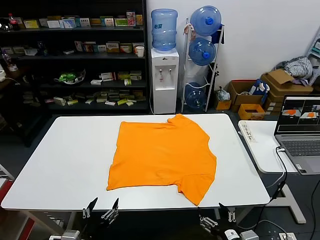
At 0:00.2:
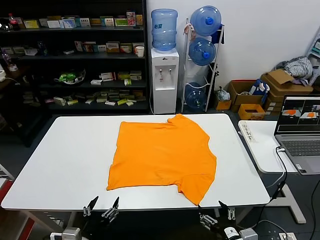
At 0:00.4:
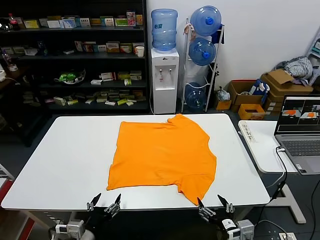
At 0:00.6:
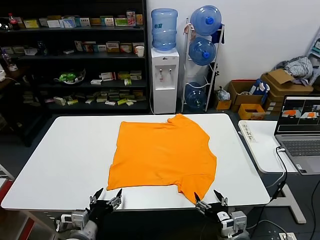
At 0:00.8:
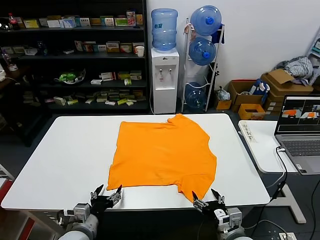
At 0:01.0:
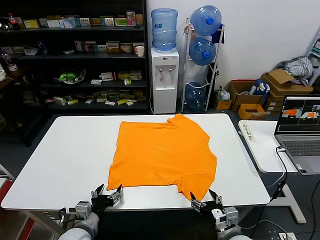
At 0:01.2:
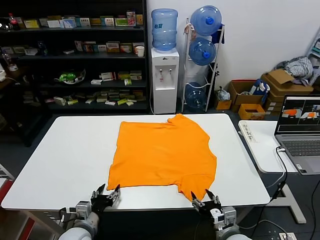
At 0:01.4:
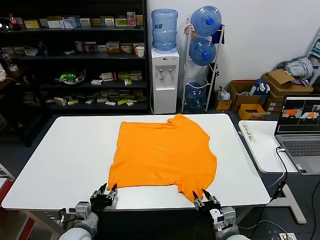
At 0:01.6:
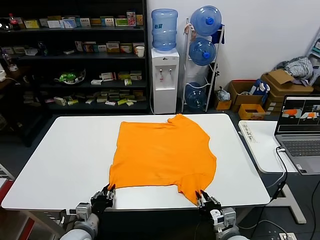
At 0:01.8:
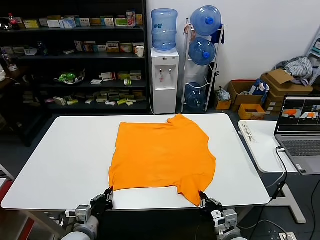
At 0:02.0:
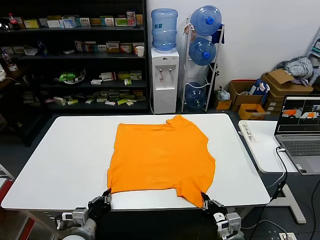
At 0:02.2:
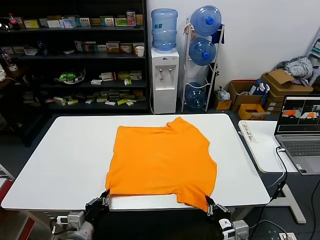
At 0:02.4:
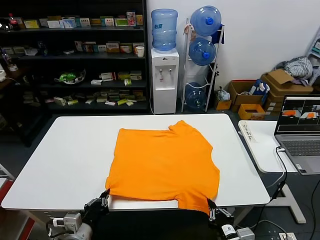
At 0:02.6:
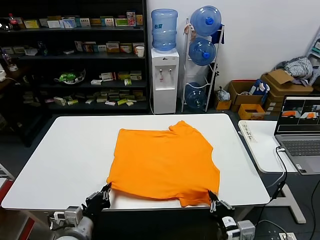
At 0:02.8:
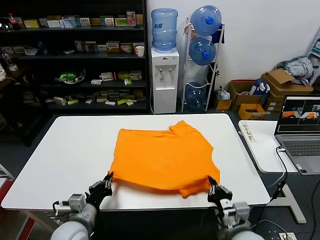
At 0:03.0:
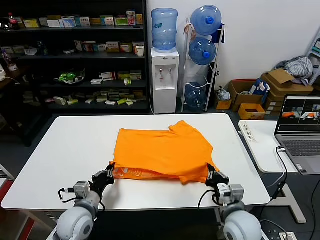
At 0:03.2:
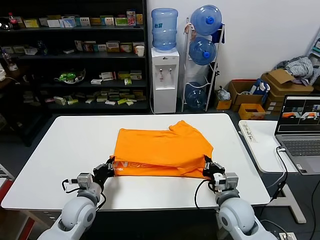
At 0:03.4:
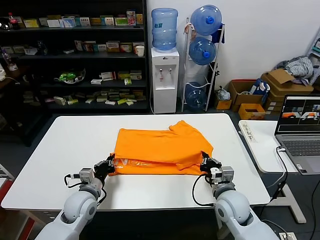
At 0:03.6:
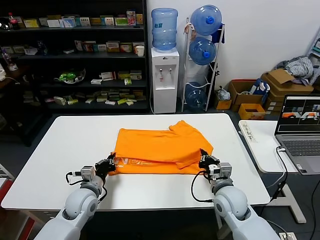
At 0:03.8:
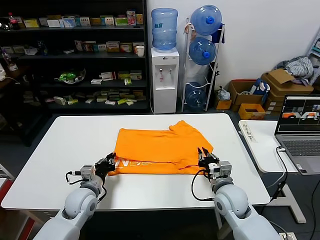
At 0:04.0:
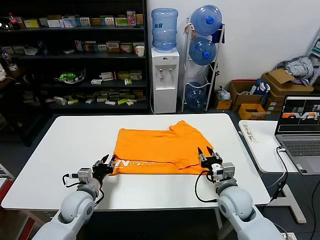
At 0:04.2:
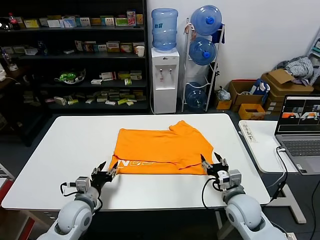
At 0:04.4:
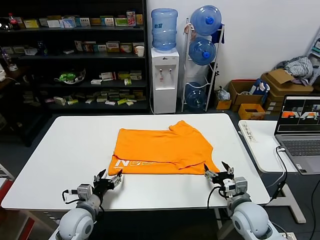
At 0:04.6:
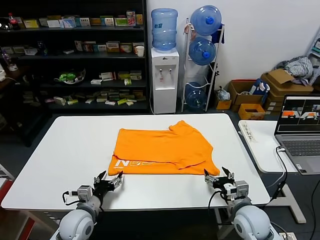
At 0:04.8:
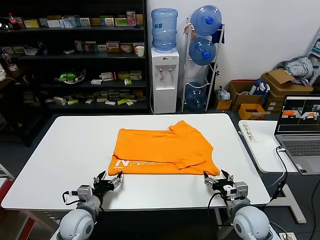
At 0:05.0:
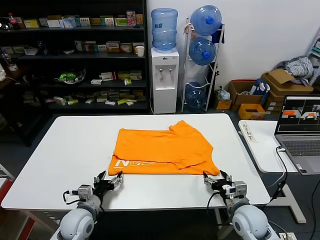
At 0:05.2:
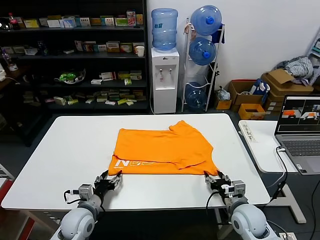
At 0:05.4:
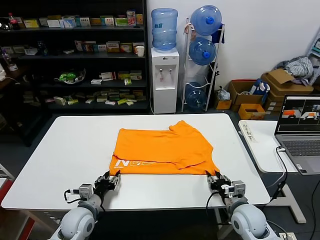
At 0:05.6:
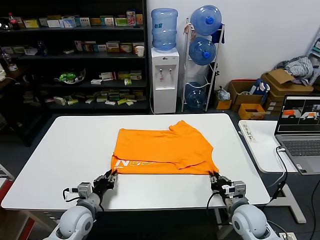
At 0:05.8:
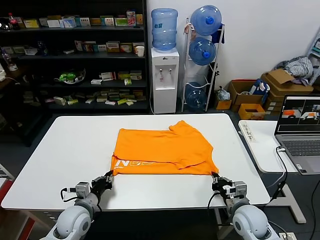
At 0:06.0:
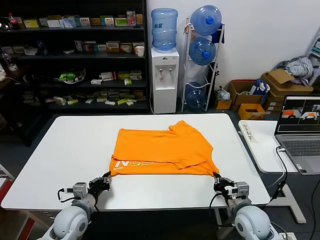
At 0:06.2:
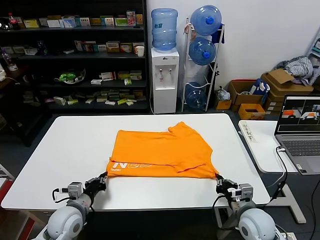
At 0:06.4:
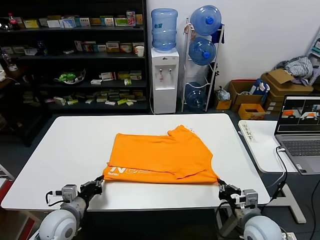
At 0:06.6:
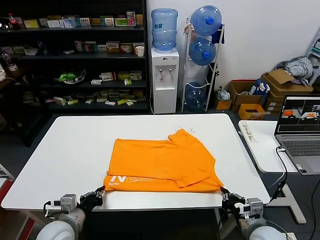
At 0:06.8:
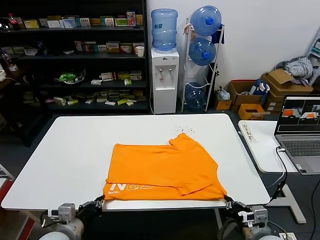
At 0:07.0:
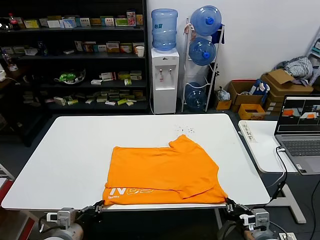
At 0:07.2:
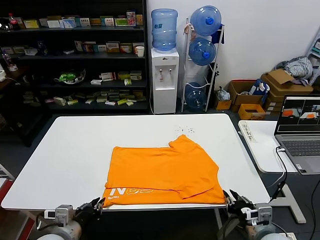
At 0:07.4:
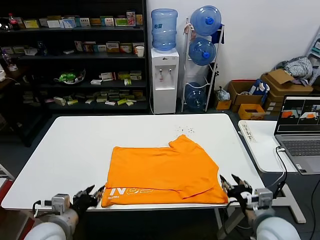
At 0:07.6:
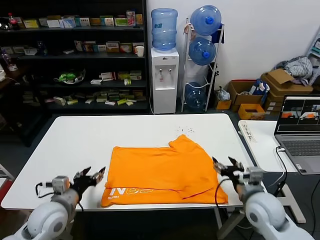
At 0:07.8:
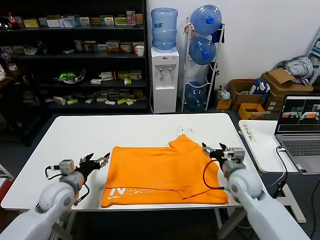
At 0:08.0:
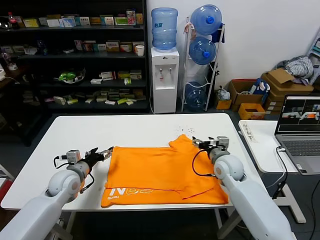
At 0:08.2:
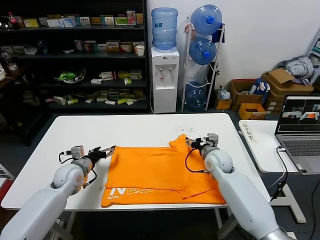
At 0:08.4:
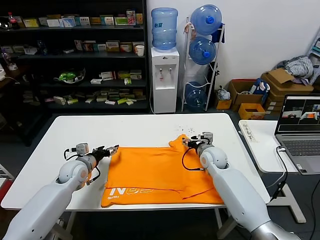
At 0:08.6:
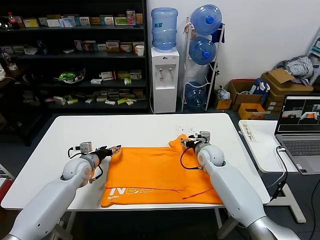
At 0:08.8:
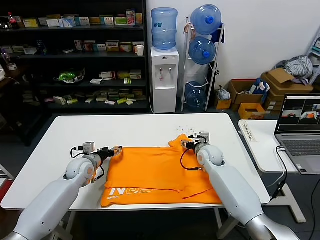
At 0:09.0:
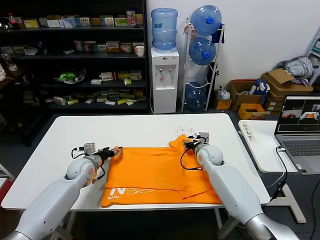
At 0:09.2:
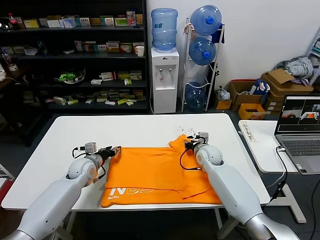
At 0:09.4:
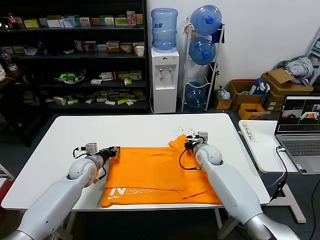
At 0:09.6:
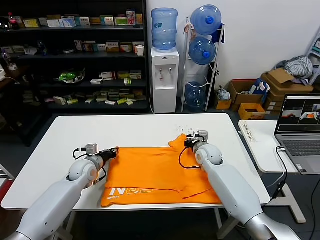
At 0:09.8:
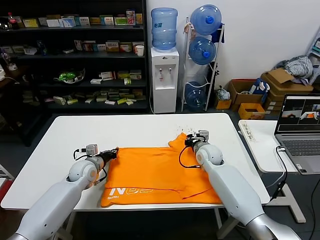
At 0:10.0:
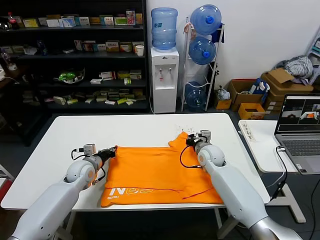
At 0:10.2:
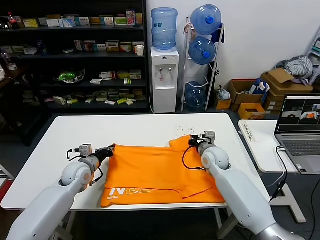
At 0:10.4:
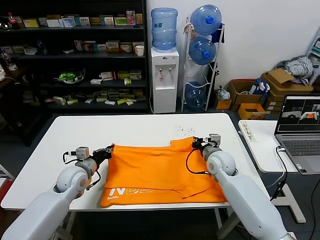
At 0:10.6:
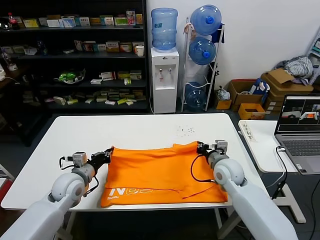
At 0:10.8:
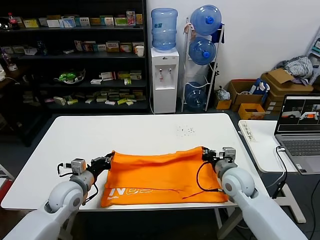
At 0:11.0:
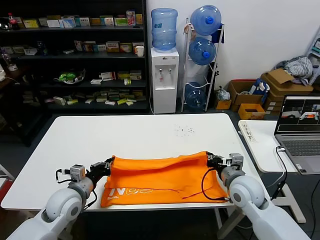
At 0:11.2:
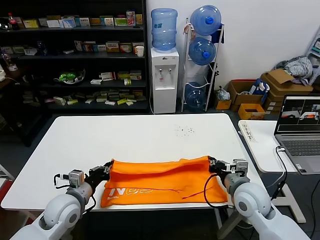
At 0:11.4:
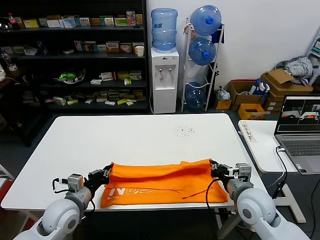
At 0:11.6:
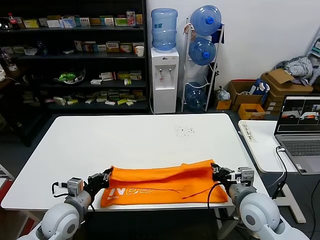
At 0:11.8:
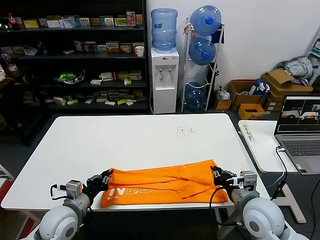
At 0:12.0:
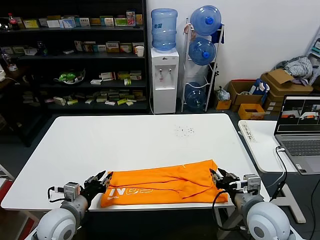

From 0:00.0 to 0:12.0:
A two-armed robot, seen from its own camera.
Task of the whole recording: fold and organize the clothes.
Step, from 0:00.0 to 0:01.8: use both grippers simultaneously to clamp the lower edge of the clothing fabric.
Step, from 0:02.0 to 0:03.8: use both grippers to drag the lower edge of the fabric forward and fold it over the upper edge.
Step, from 0:04.0 to 0:07.2: Drag the clothes downward with both gripper.
Step, from 0:07.4 to 0:09.6: use both grippers simultaneously to clamp the upper edge of the clothing fabric.
Step, from 0:09.8 to 0:11.8: use both grippers to drag the upper edge of the fabric backward and fold it over the lower edge.
From 0:01.6 to 0:03.0: The right gripper heads upward and forward, covering some 5 cm; the left gripper heads upward, covering some 5 cm, and closes up.
From 0:03.0 to 0:04.4: The left gripper opens up. Meanwhile the right gripper changes place by about 5 cm, and opens.
From 0:04.4 to 0:06.0: The right gripper closes its fingers; the left gripper closes.
From 0:06.0 to 0:07.6: The right gripper travels upward by approximately 10 cm, goes backward and returns, roughly 10 cm each way, and opens; the left gripper goes some 10 cm upward and backward, and opens its fingers.
From 0:07.6 to 0:09.0: The grippers both shift forward by approximately 25 cm.
From 0:09.0 to 0:10.4: The left gripper shifts by roughly 5 cm, and closes, while the right gripper heads backward, covering roughly 5 cm, and closes up.
From 0:10.4 to 0:12.0: The two grippers go roughly 20 cm backward. The left gripper opens, while the right gripper opens its fingers.

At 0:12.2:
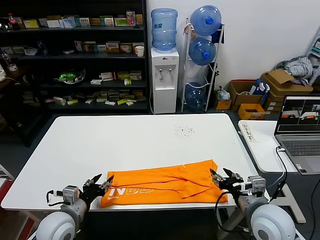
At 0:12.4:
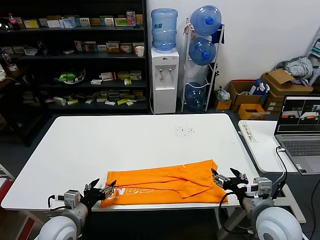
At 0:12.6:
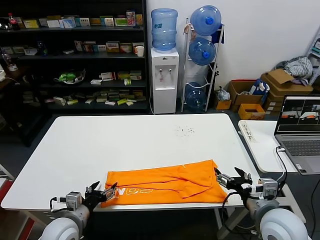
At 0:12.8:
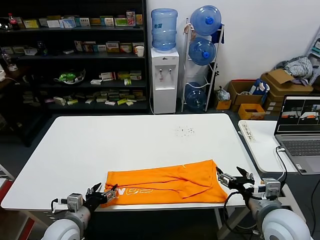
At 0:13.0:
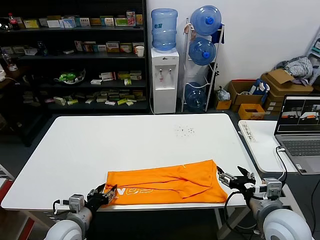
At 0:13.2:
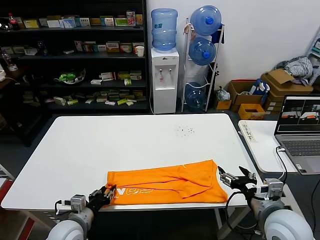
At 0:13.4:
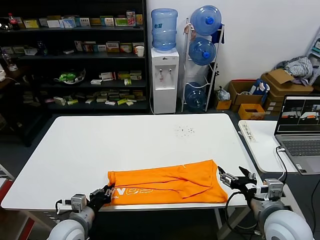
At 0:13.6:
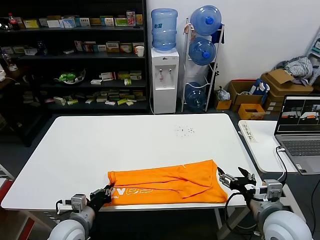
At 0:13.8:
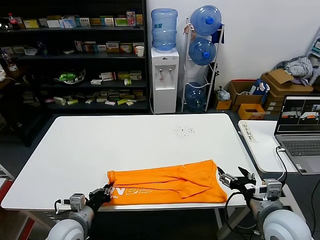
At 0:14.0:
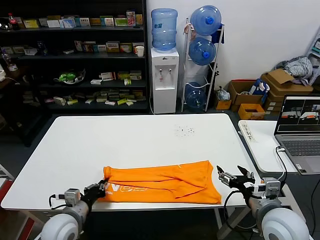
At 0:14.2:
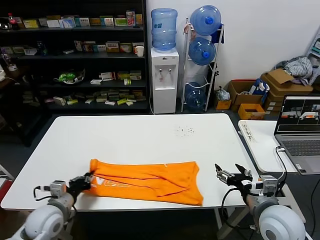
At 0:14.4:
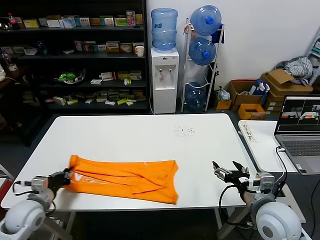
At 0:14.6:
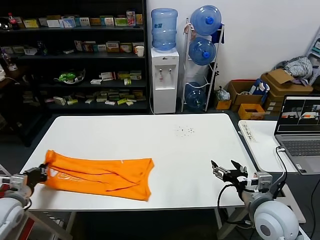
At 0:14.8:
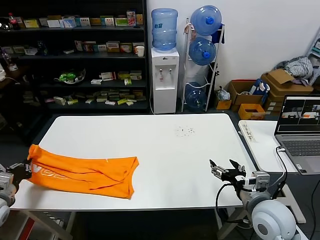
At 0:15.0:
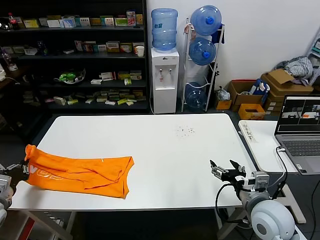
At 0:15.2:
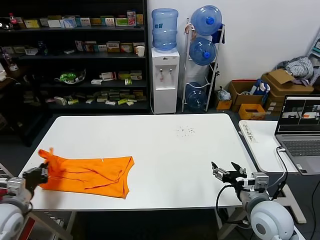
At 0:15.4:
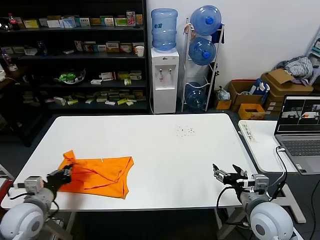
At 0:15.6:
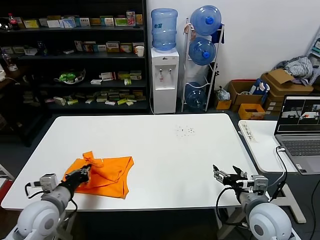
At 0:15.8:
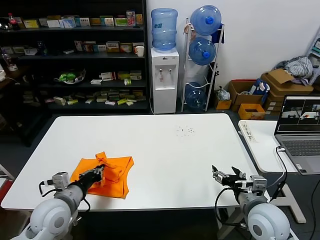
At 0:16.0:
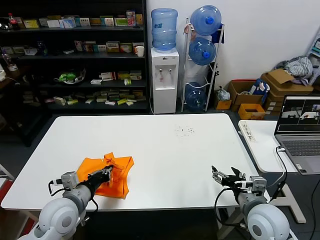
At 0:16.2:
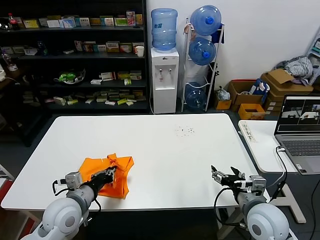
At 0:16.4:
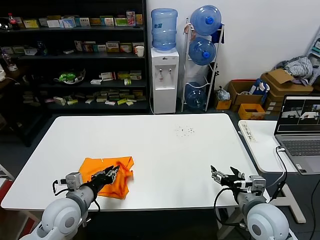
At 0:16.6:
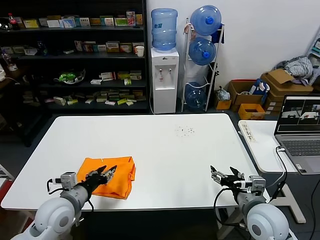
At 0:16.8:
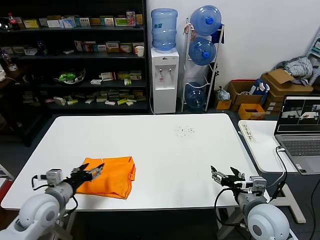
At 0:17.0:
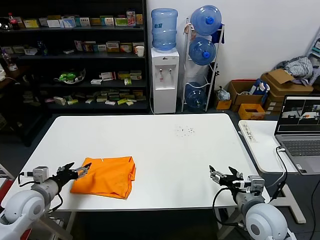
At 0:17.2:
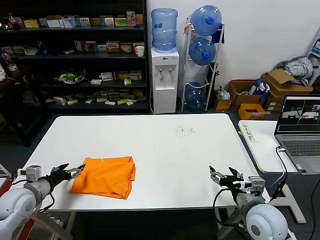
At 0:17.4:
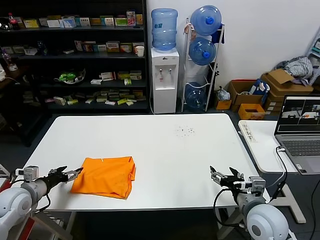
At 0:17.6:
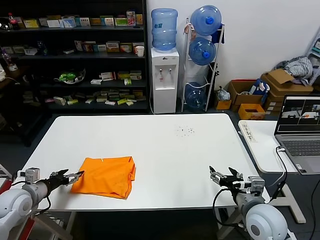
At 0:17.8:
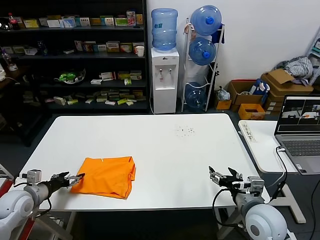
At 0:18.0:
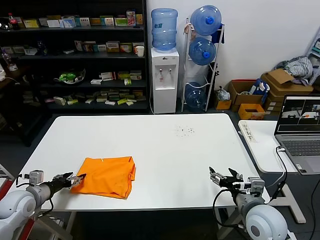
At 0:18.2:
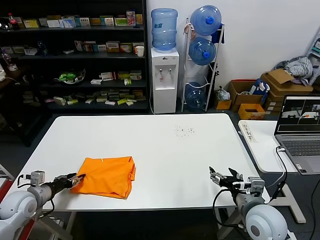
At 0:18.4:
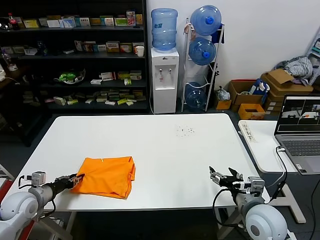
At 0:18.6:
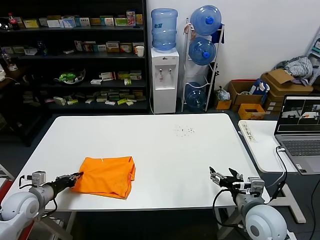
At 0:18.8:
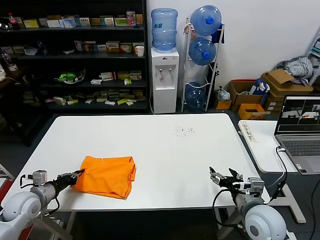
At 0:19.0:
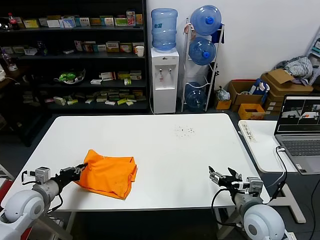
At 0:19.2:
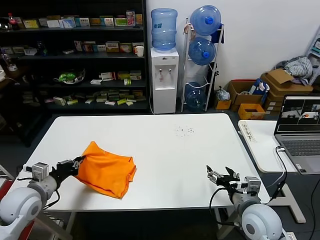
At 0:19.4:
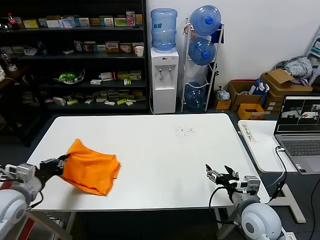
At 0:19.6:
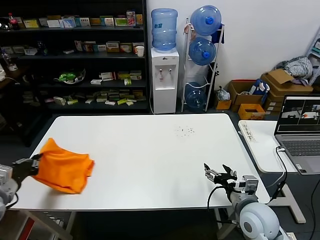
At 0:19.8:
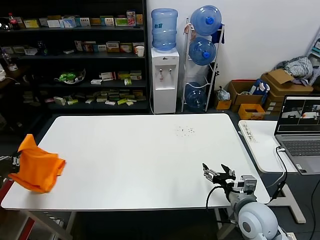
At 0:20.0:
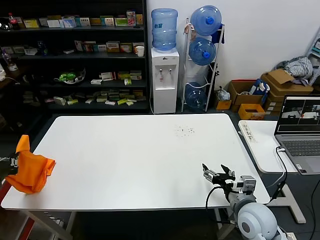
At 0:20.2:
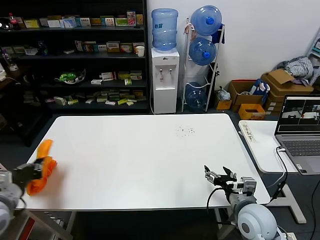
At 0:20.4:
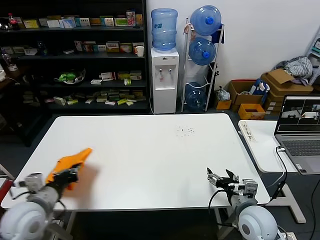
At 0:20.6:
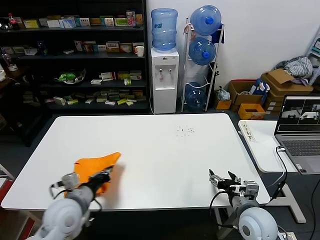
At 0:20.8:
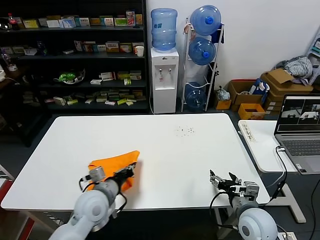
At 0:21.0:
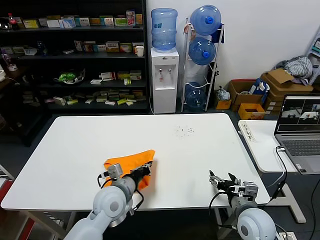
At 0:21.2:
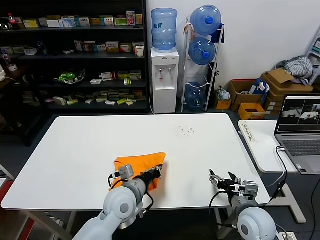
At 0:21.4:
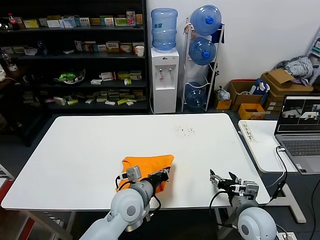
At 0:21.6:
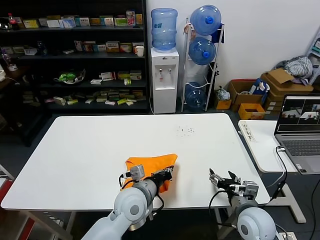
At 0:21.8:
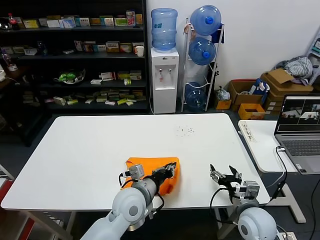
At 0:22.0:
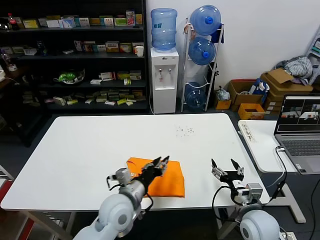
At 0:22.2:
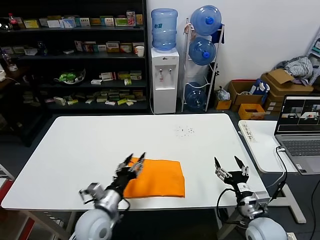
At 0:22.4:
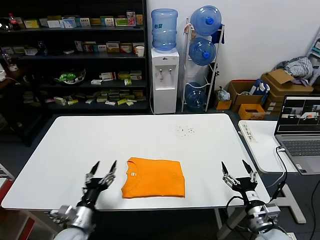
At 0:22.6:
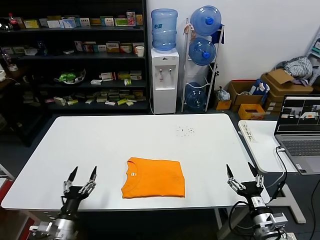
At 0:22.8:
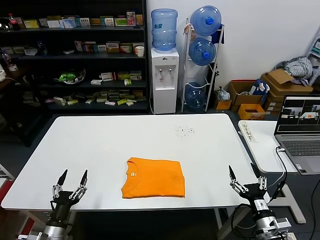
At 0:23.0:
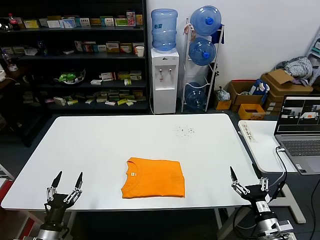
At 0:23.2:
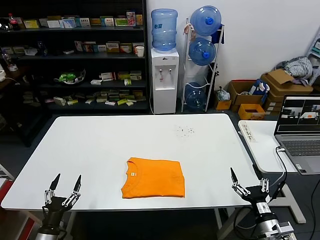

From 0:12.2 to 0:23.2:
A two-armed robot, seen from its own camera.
Task of the whole recording: fold and organize the clothes.
Step, from 0:12.2 to 0:13.8: use the left gripper to clamp the left edge of the fabric.
Step, from 0:14.0 to 0:16.4: use the left gripper to drag the left edge of the fabric to the left and folds it over the right edge.
Step, from 0:16.6 to 0:22.0: Flip the folded clothes over with left gripper.
From 0:12.2 to 0:13.8: The left gripper closes its fingers. The right gripper opens up.
From 0:13.8 to 0:15.4: The left gripper shifts some 15 cm to the left and upward.
From 0:15.4 to 0:17.0: The left gripper travels to the right and back again, some 15 cm each way, and opens up.
From 0:17.0 to 0:18.4: The left gripper heads to the left, covering about 5 cm, and closes.
From 0:18.4 to 0:20.0: The left gripper travels upward and backward by some 15 cm, and closes its fingers.
From 0:20.0 to 0:21.6: The left gripper travels to the right by approximately 40 cm.
From 0:21.6 to 0:23.2: The left gripper heads to the left, downward and backward, covering about 35 cm, and opens up; the right gripper travels backward, to the right and downward by some 10 cm.
